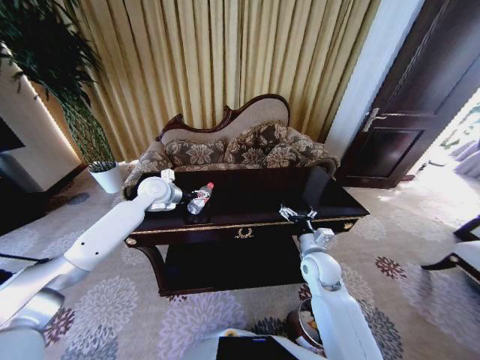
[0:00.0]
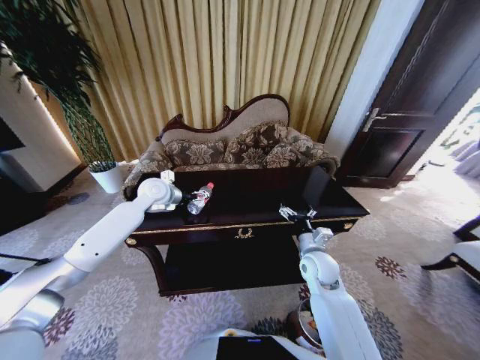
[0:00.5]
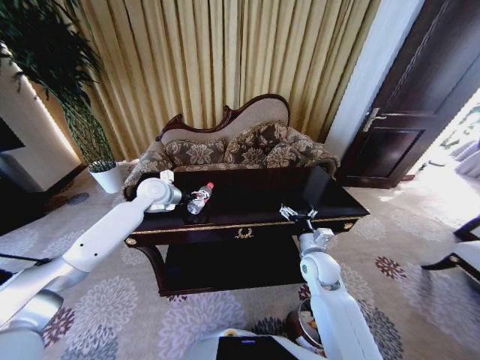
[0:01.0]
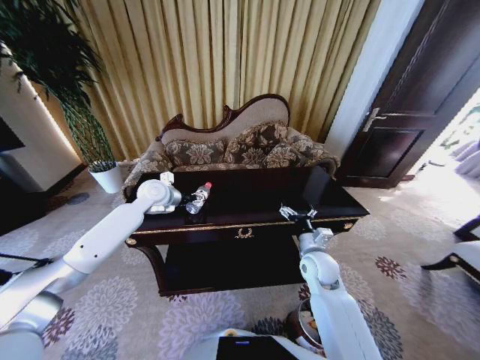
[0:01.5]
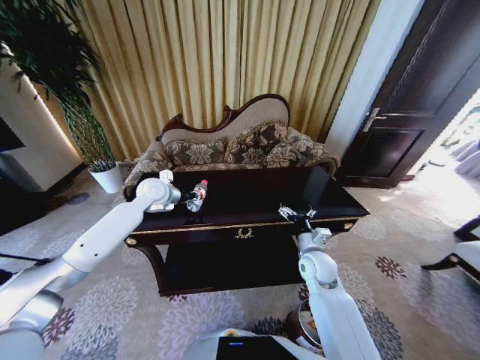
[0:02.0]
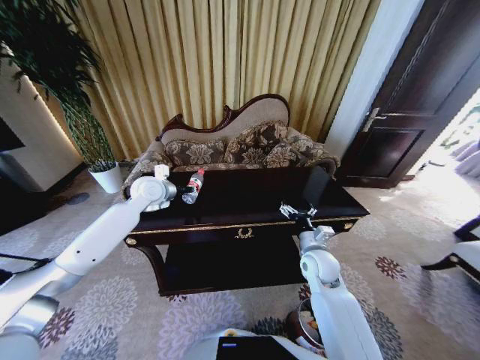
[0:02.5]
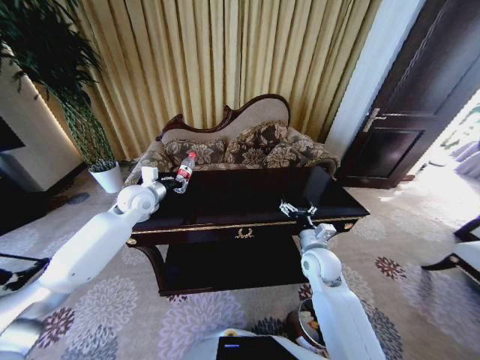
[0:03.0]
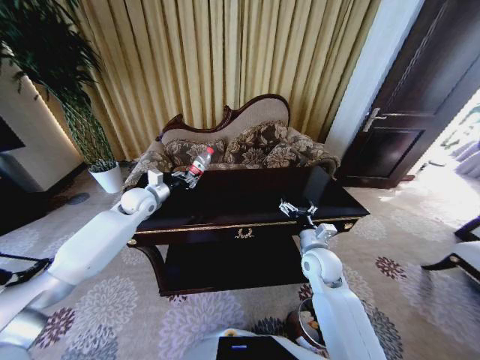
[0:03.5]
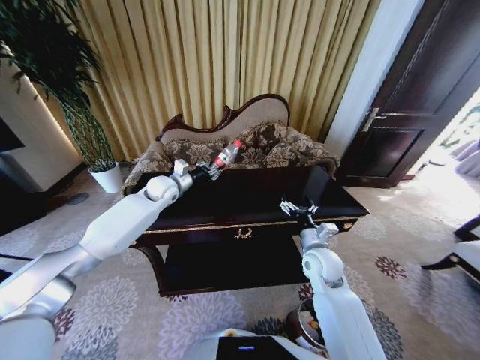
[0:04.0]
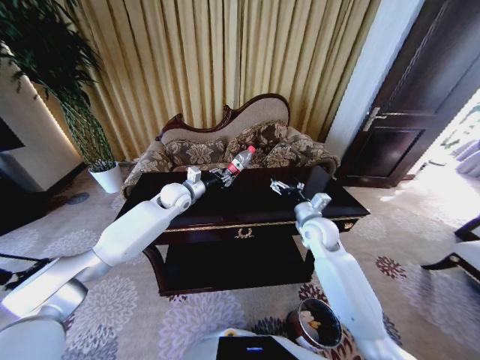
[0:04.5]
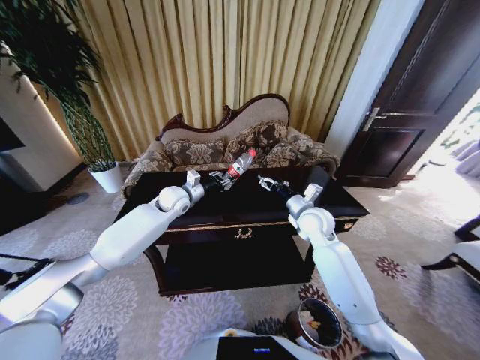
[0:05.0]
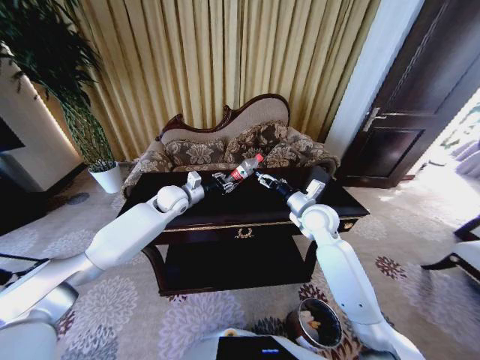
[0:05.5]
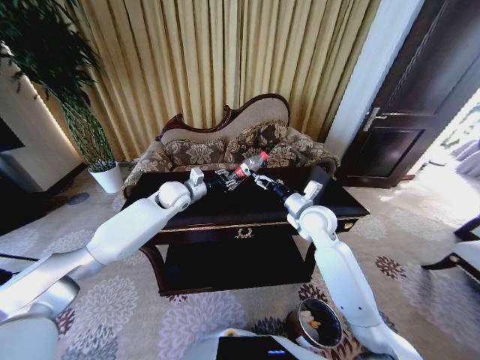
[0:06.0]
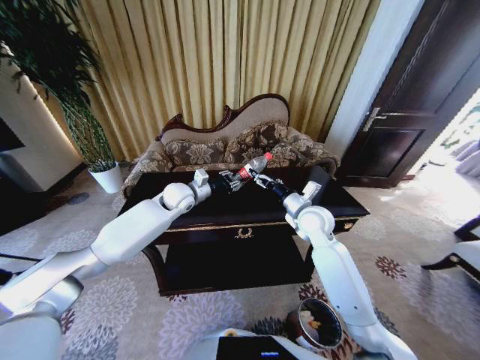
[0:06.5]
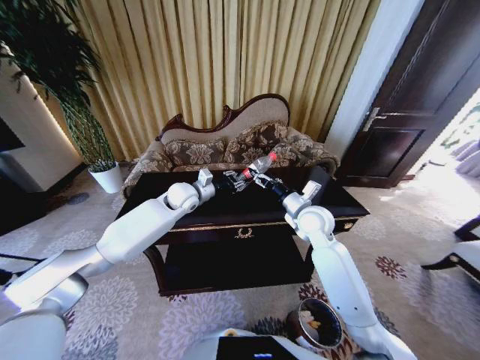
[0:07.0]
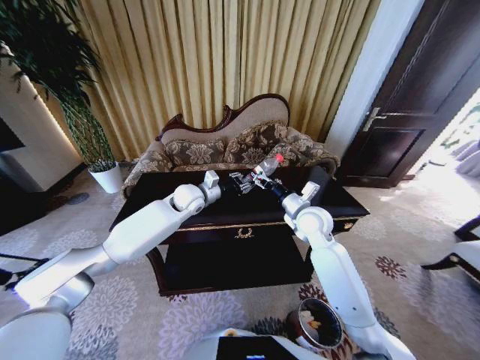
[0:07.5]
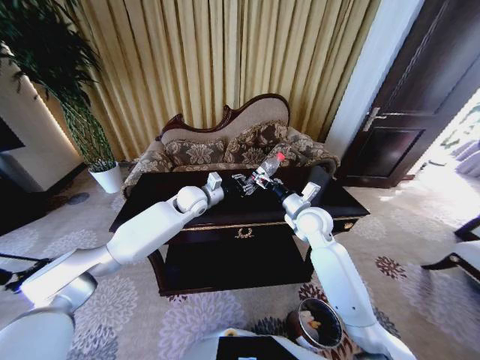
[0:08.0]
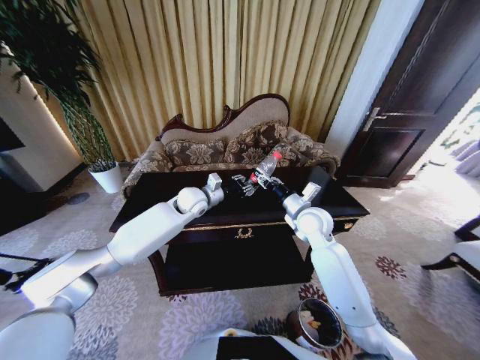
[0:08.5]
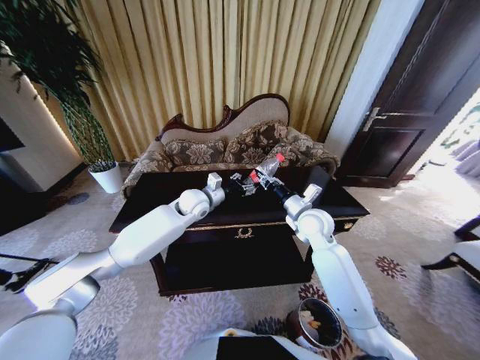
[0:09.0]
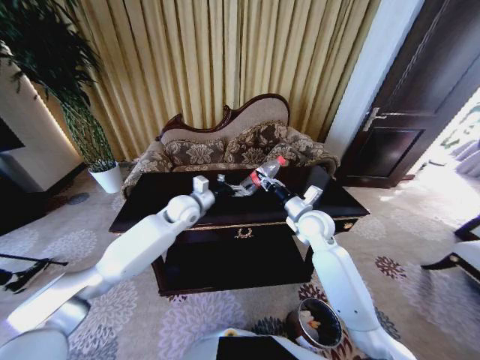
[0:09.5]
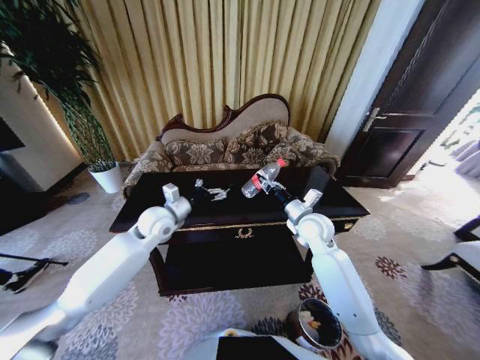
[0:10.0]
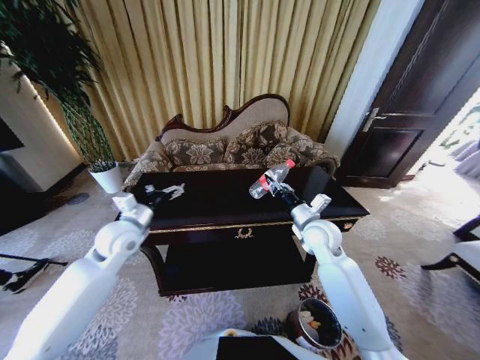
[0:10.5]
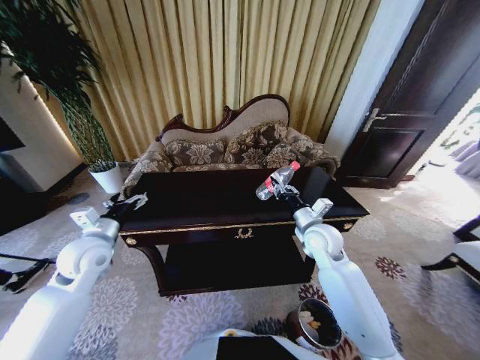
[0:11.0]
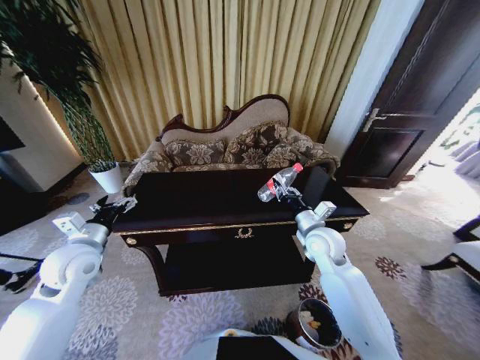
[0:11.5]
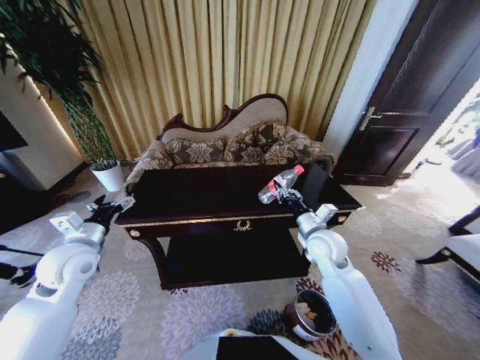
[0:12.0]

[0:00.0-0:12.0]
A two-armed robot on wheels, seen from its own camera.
Task of the whole recording: Move to the front of the table and place the trash on the table into the trash bin.
0:00.0 to 0:02.0: The left gripper closes its fingers.
0:04.0 to 0:06.0: The left gripper ends up some 5 cm from where it was, while the right gripper is displaced forward and upward by approximately 10 cm.
0:06.0 to 0:08.0: The left gripper heads to the right, covering approximately 5 cm.
0:08.0 to 0:10.0: The right gripper closes. Meanwhile the left gripper travels to the left and backward by about 15 cm, and opens up.
0:10.0 to 0:12.0: The right gripper travels backward by roughly 5 cm. Meanwhile the left gripper heads to the left and backward, covering about 20 cm.

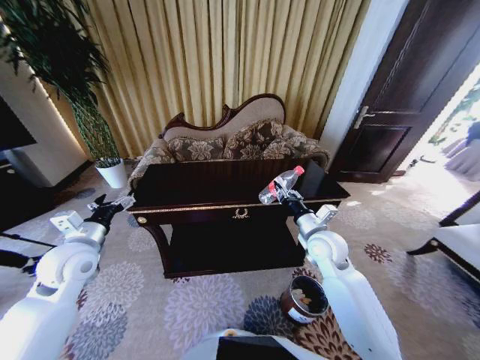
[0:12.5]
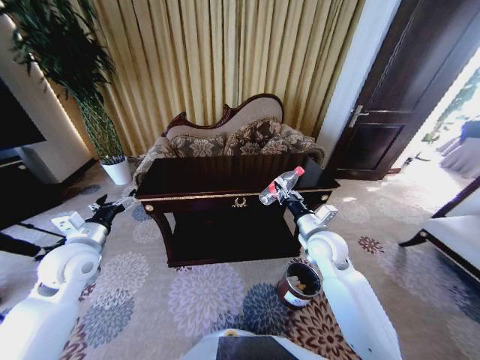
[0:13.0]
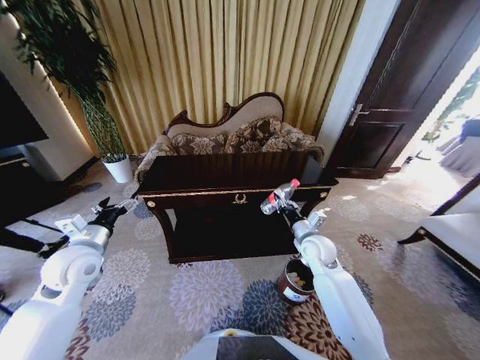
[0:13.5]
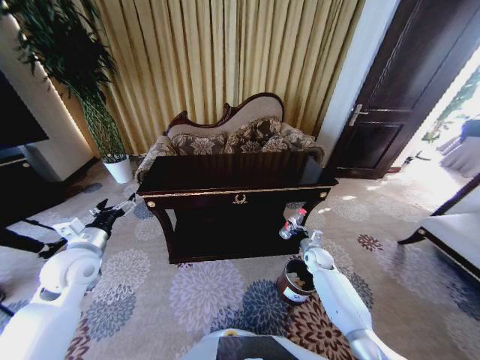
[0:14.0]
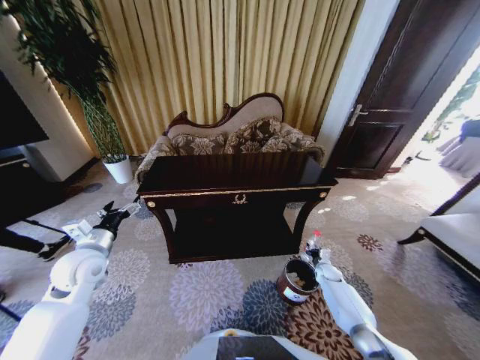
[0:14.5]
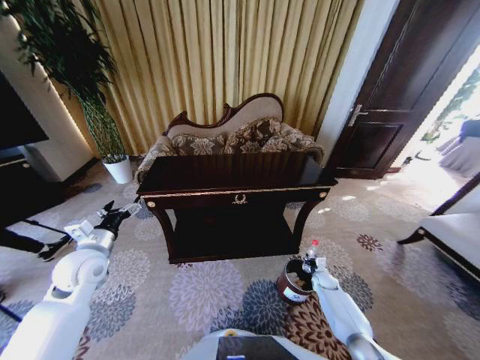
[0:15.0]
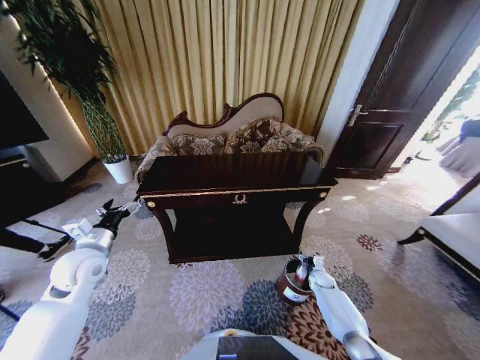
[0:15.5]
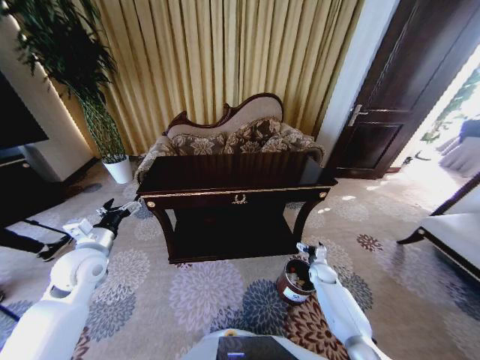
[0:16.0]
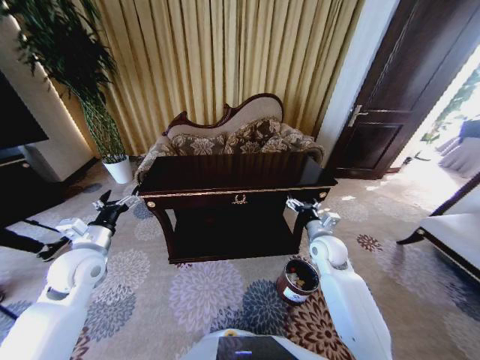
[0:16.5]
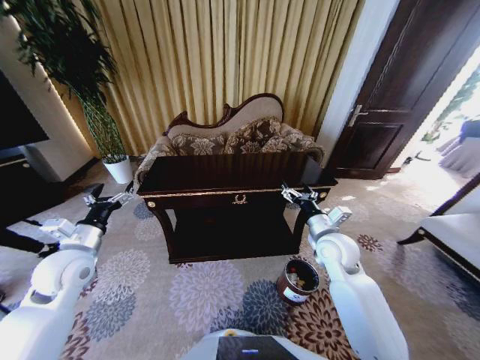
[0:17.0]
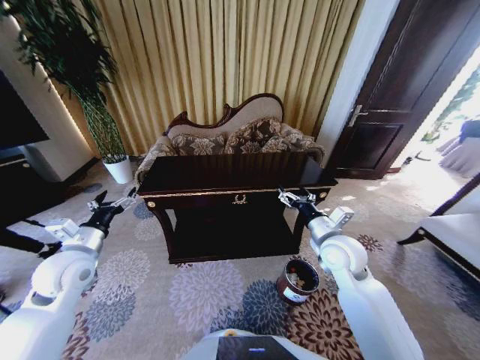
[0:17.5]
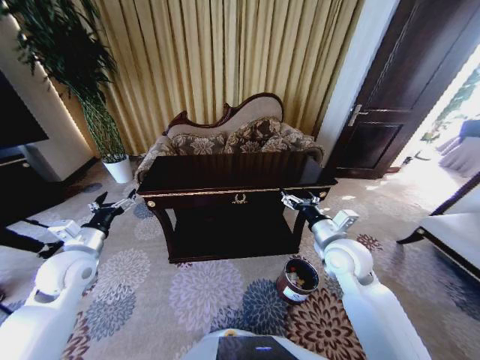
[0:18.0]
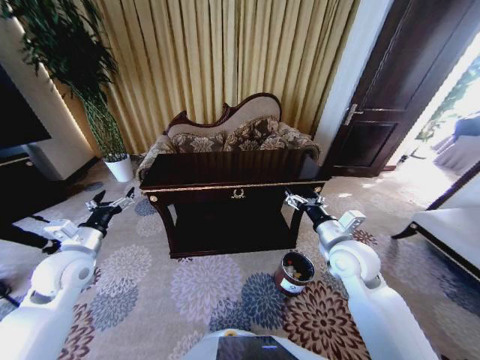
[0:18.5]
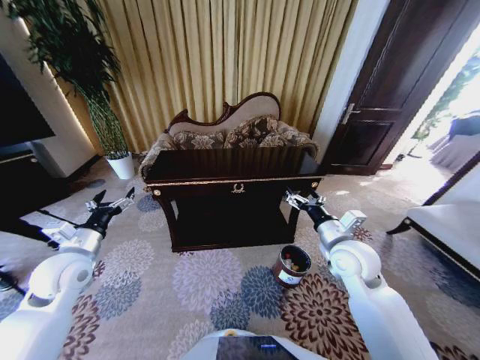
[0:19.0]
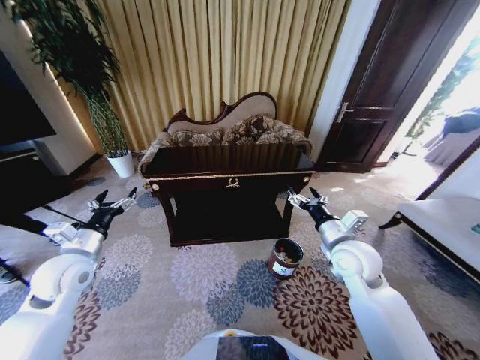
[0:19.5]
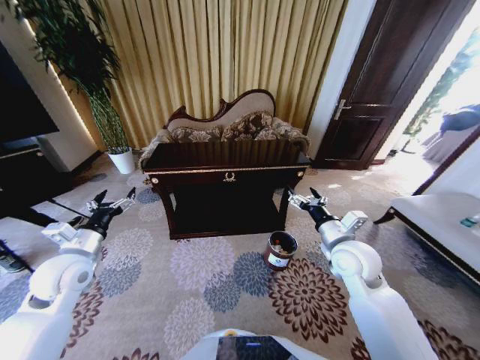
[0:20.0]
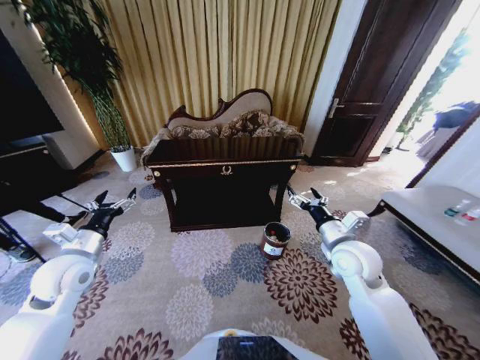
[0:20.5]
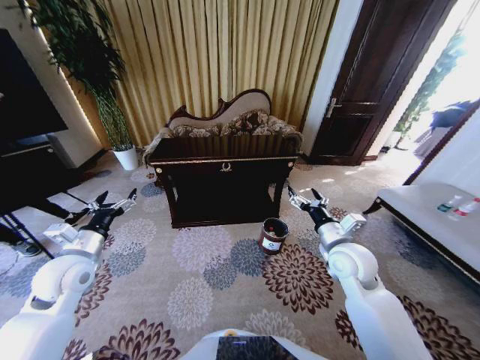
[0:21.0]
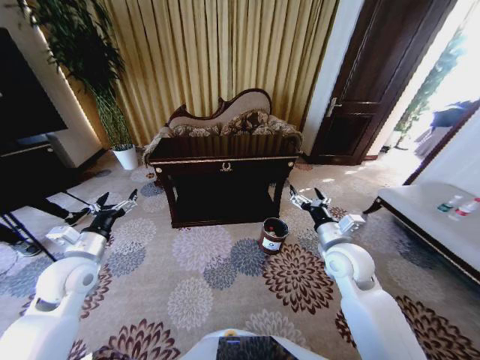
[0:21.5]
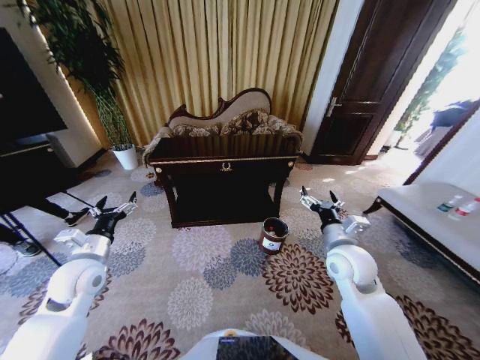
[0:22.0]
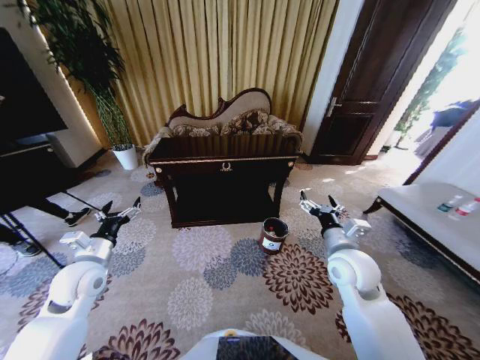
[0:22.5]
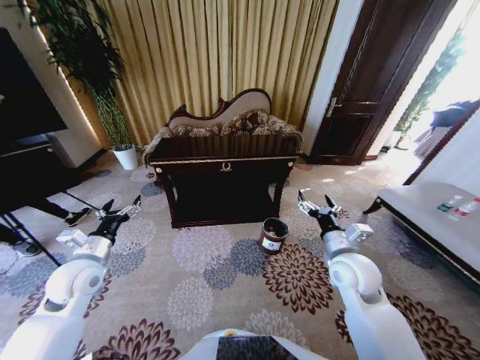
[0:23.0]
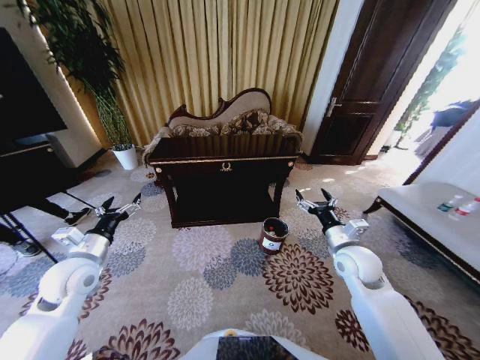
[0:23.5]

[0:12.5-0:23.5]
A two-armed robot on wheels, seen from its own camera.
Task of the whole recording: Move to the front of the table and place the trash on the table into the trash bin.
0:12.5 to 0:14.5: The right gripper moves downward and to the right, approximately 35 cm.
0:14.5 to 0:16.0: The right gripper opens.
0:16.0 to 0:18.0: The right gripper is displaced upward by approximately 30 cm.
0:21.5 to 0:23.5: The right gripper ends up about 5 cm from where it was.

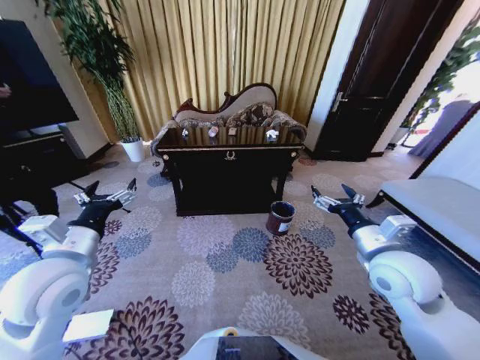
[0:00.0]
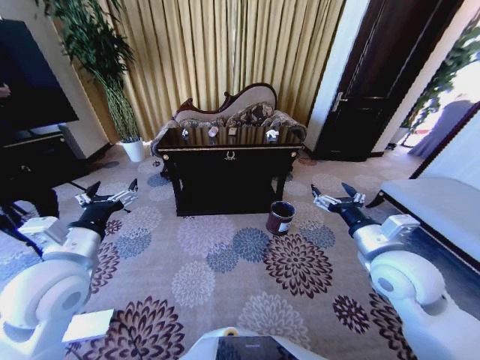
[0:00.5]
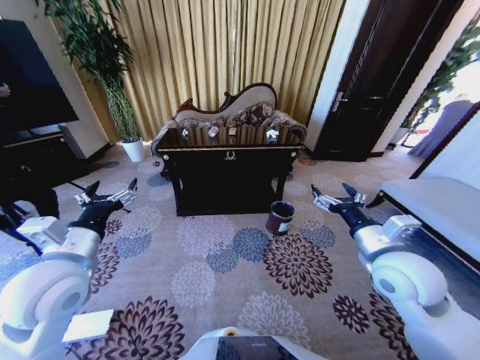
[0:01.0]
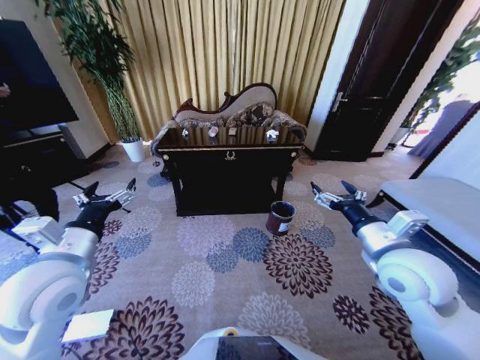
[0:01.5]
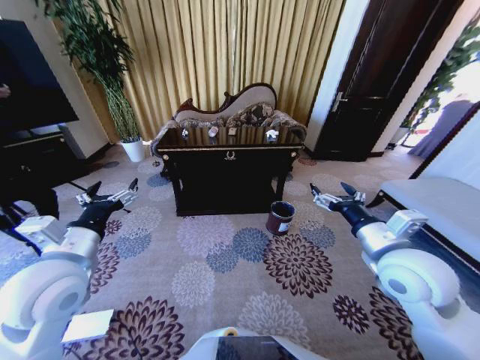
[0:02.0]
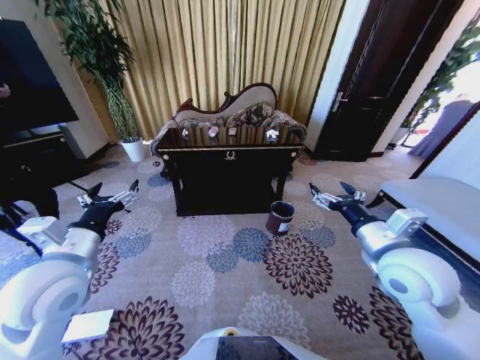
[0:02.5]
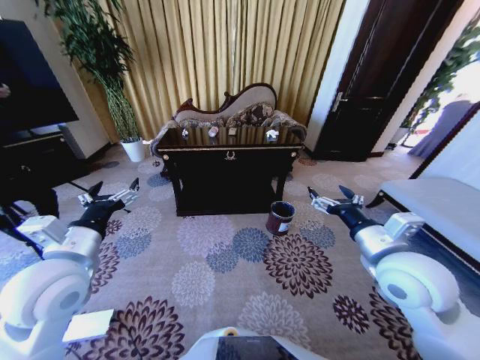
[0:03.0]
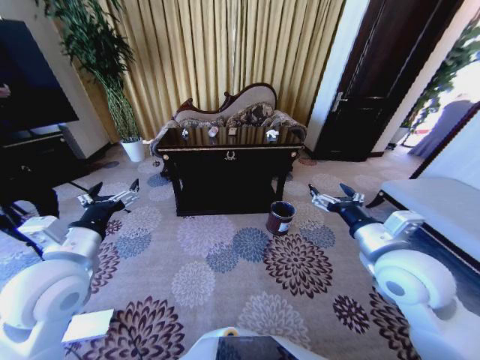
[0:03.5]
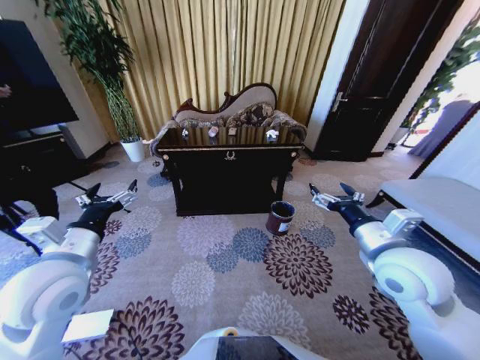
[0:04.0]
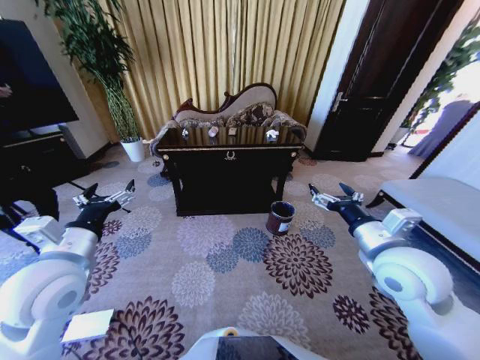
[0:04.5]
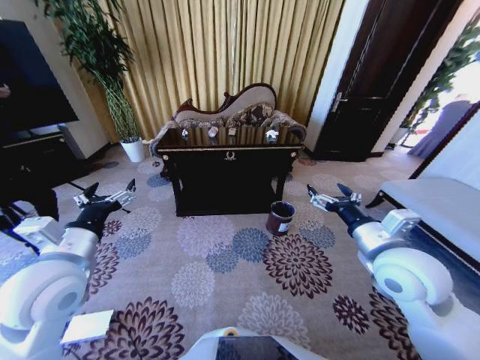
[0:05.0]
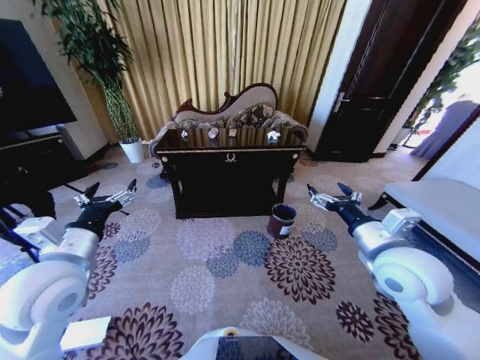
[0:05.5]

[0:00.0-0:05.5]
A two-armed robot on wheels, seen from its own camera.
Task of the whole recording: Move to the front of the table and place the trash on the table into the trash bin.
0:02.0 to 0:05.5: Both grippers stay put.
